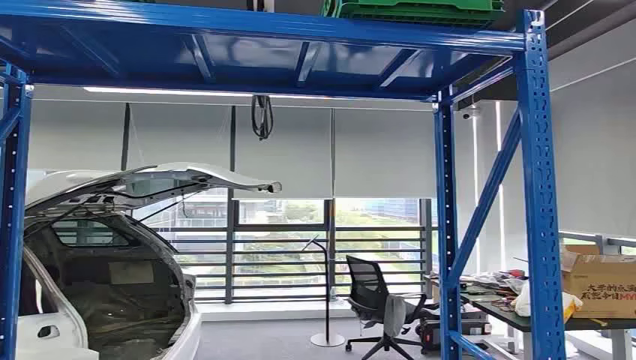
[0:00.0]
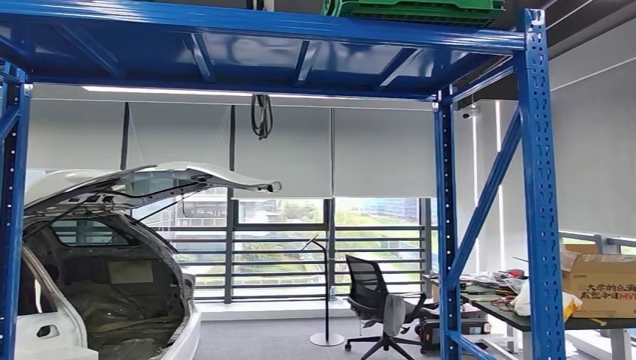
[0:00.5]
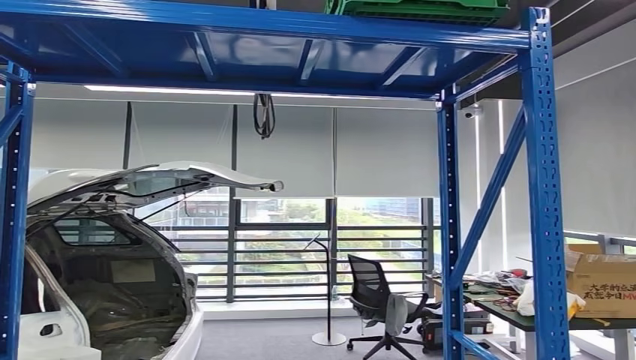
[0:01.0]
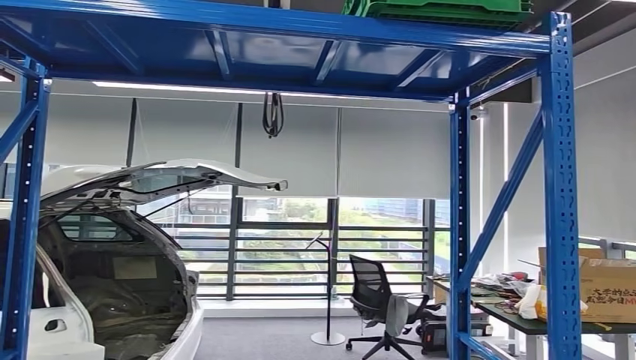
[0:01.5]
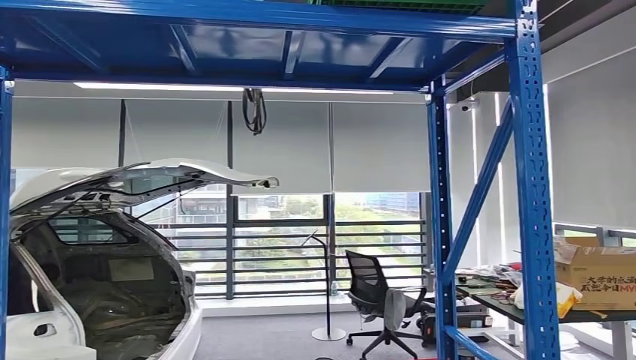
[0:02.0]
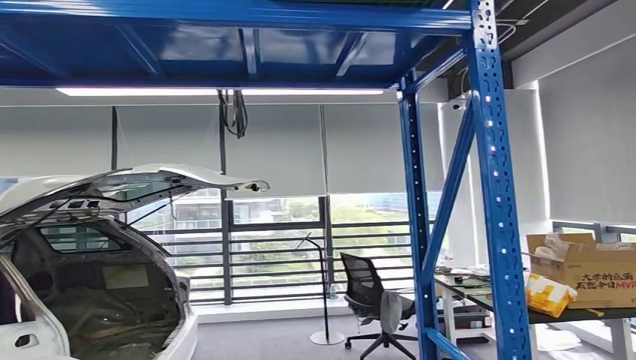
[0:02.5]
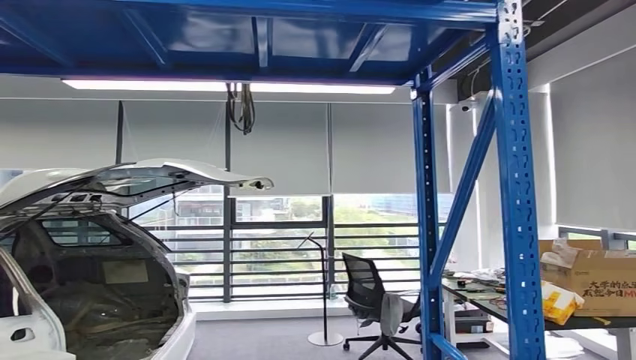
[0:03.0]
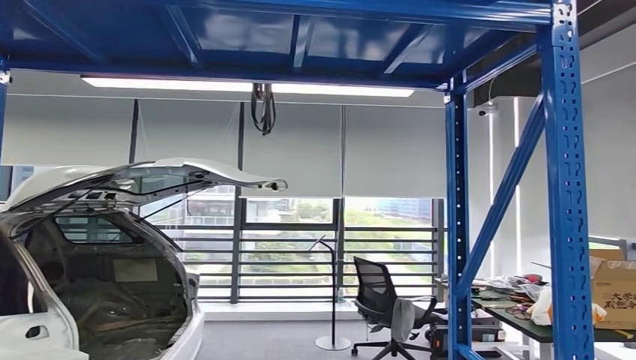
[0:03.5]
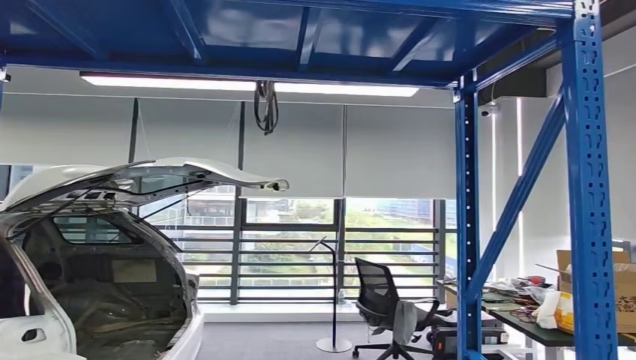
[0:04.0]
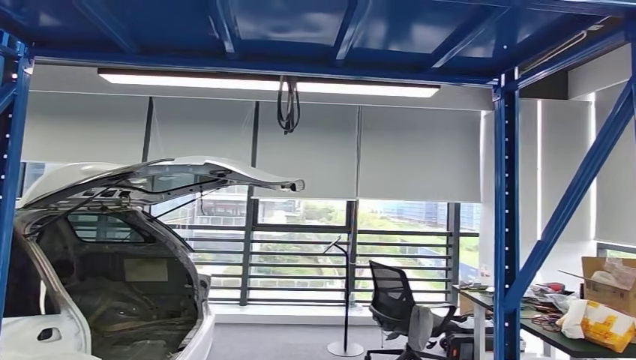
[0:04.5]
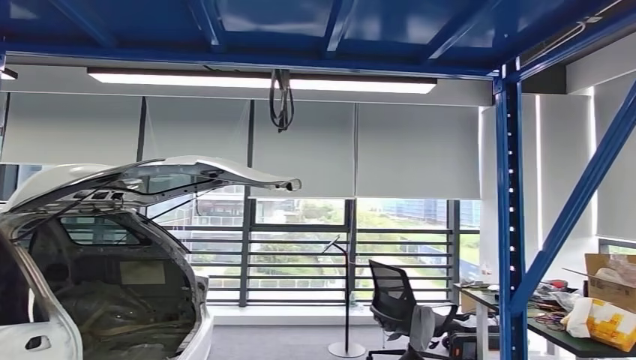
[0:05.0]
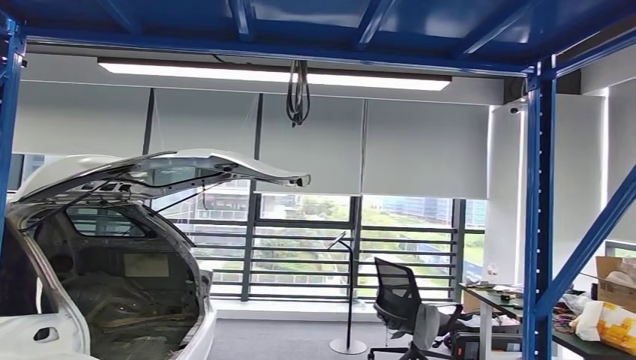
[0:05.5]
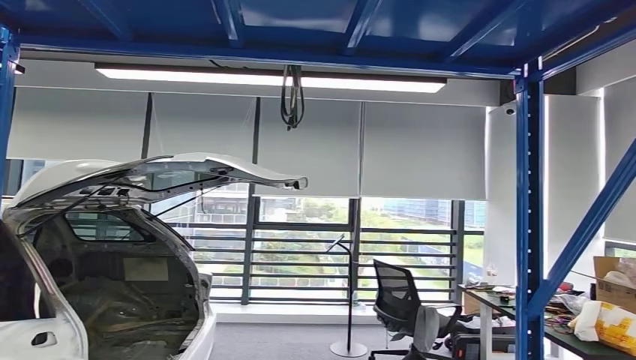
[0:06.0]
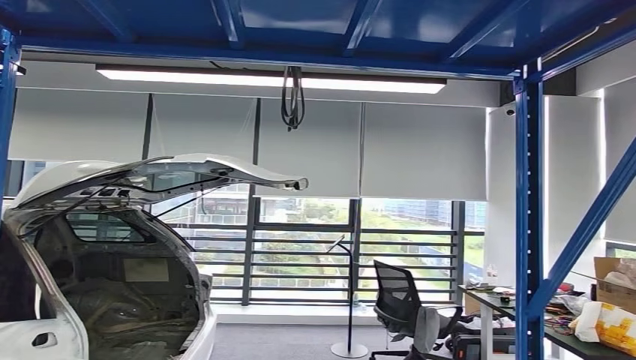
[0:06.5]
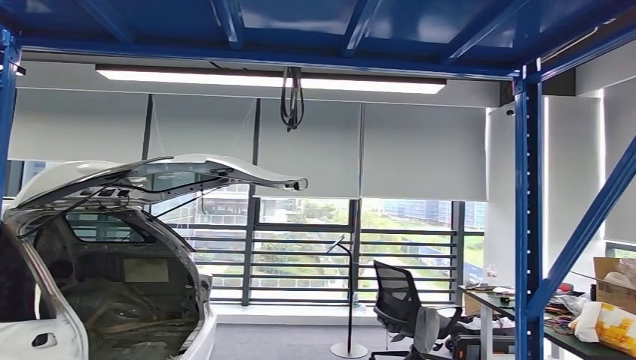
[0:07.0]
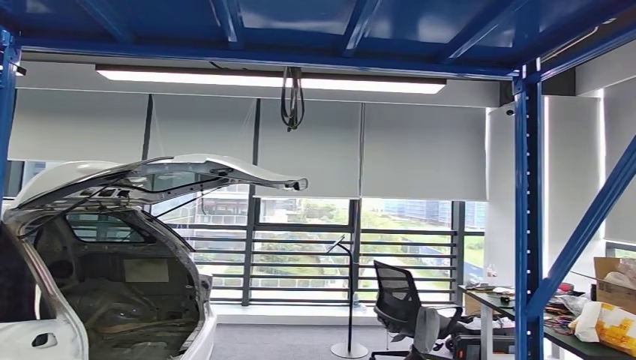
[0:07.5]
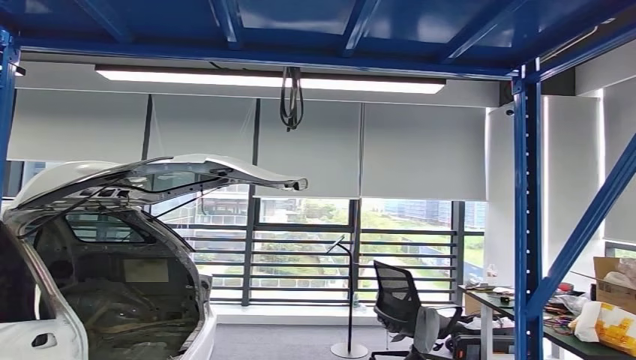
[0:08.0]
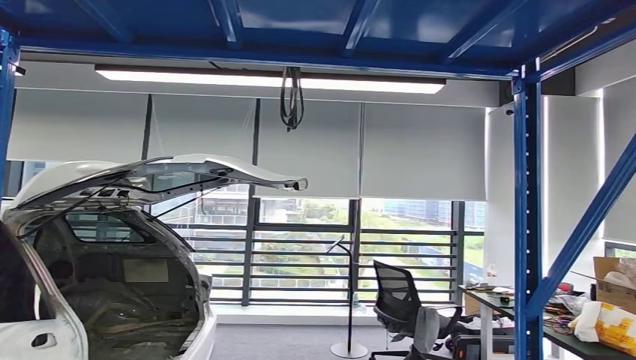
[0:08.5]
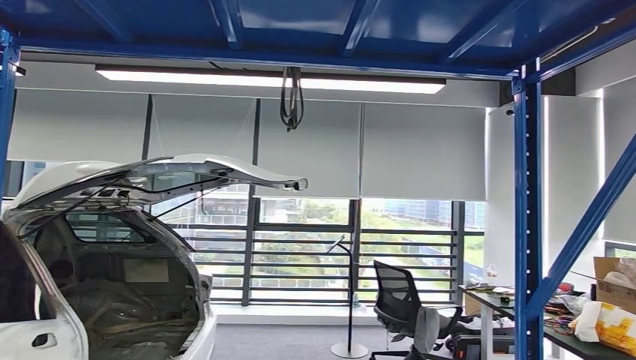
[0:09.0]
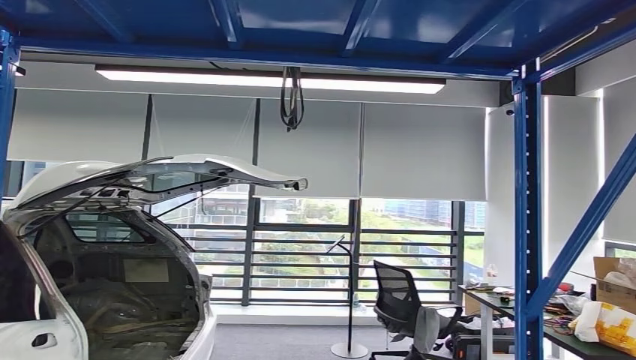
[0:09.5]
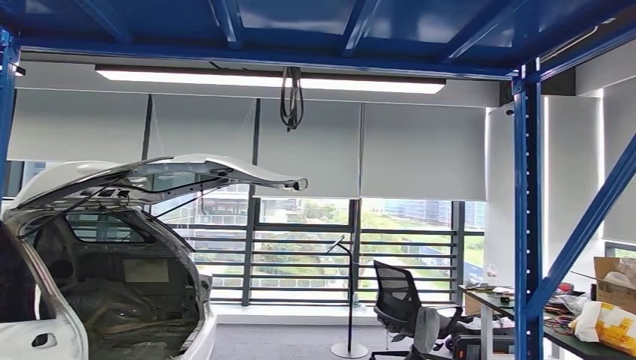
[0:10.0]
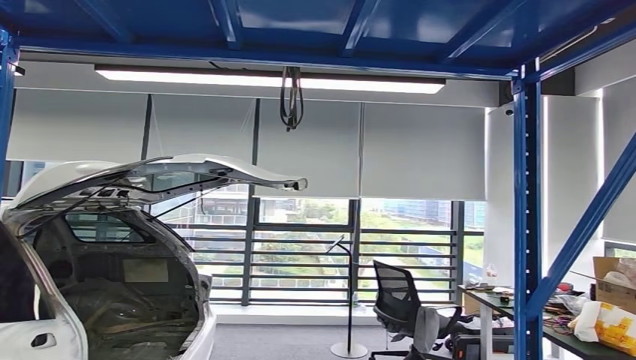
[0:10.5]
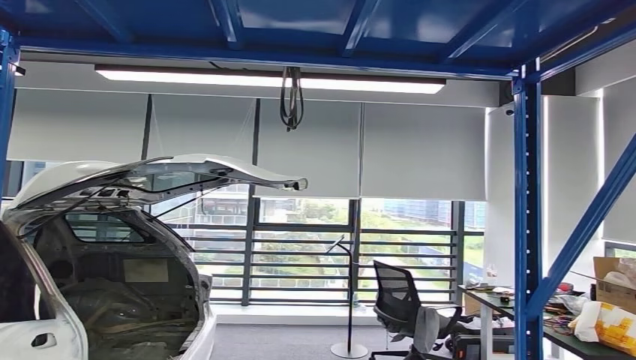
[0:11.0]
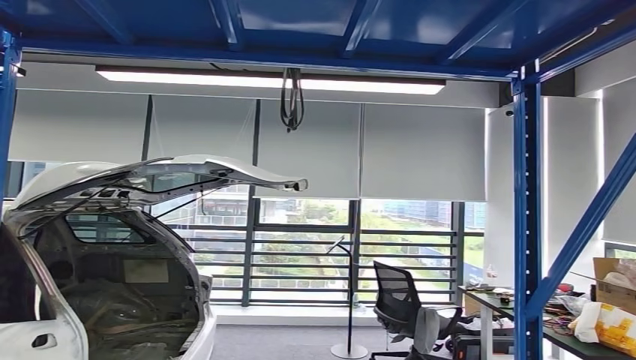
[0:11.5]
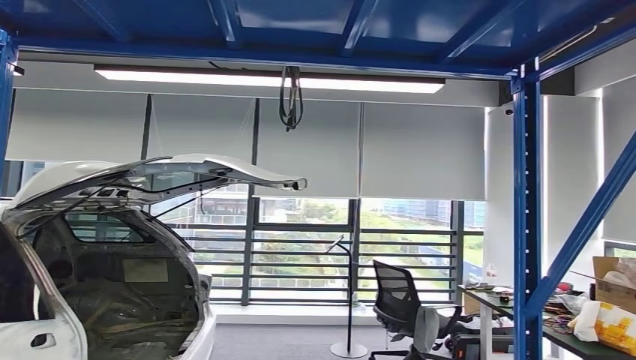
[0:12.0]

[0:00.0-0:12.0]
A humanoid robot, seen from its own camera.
Step, 0:00.0 to 0:11.5: Pick up the small component from the shelf.
0:06.0 to 0:08.0: The right hand moves forward, approximately 10 cm.
0:10.0 to 0:12.0: The right hand heads to the left, covering about 5 cm.

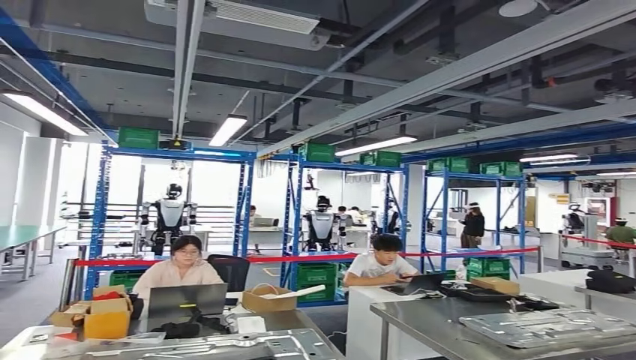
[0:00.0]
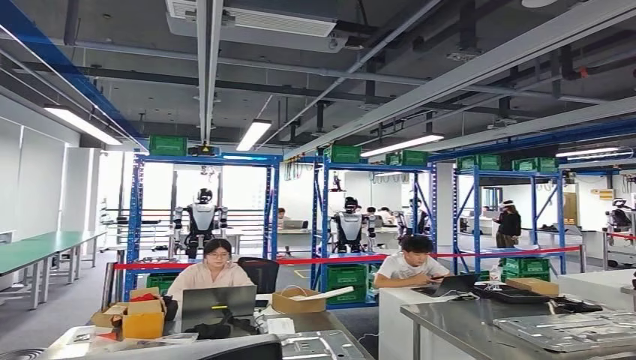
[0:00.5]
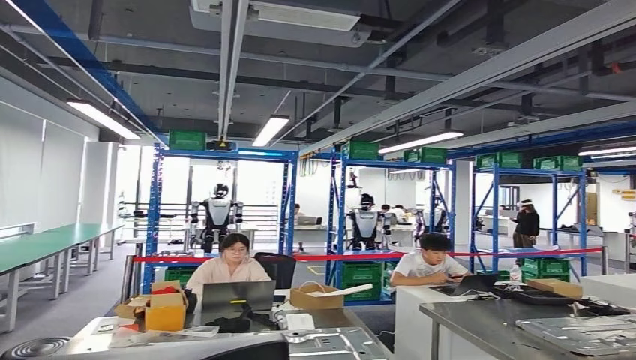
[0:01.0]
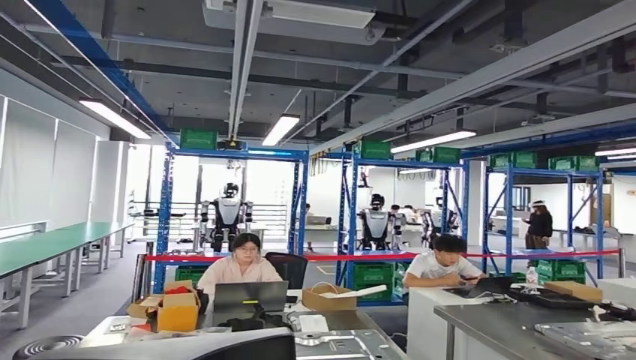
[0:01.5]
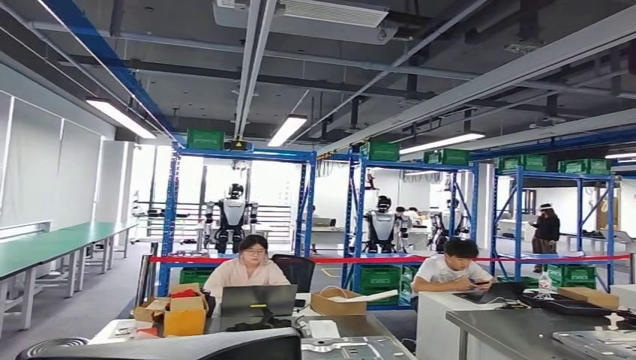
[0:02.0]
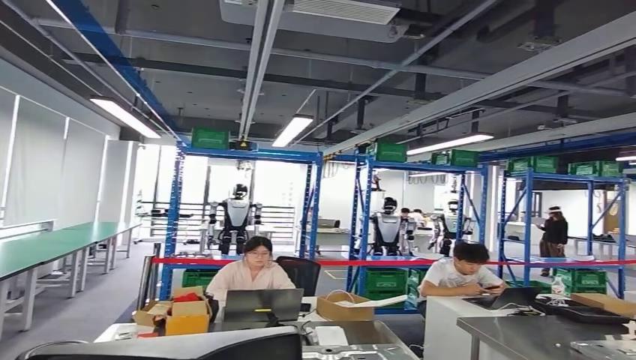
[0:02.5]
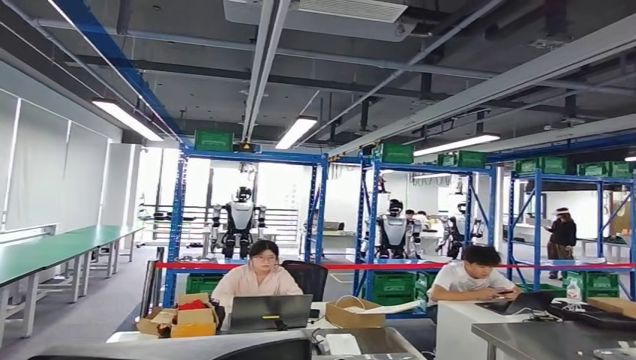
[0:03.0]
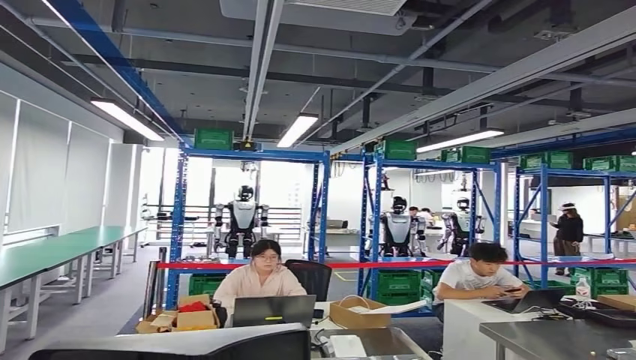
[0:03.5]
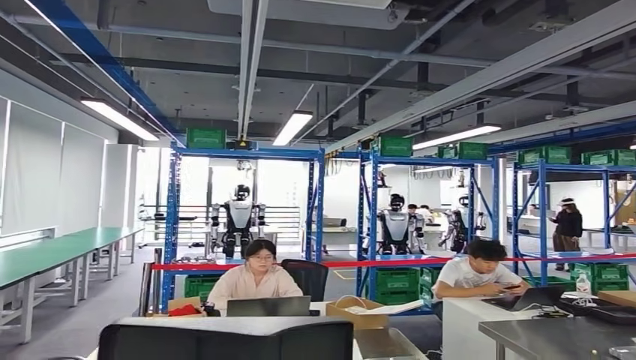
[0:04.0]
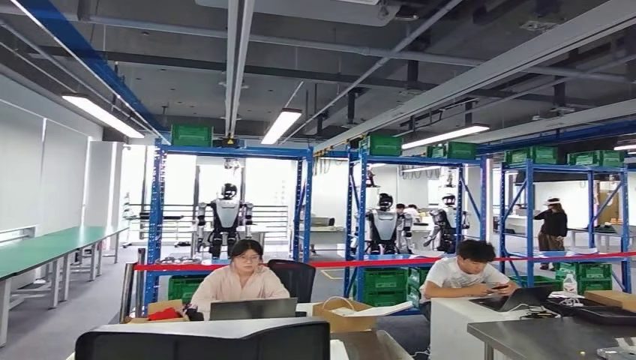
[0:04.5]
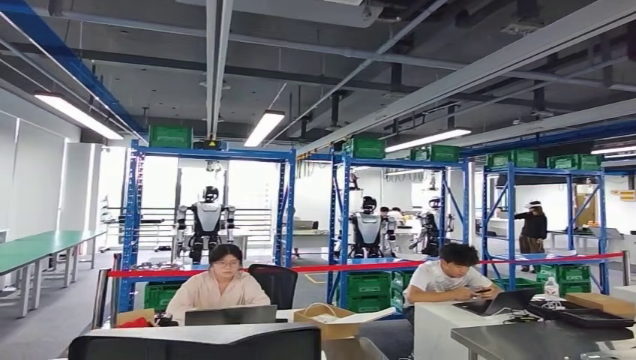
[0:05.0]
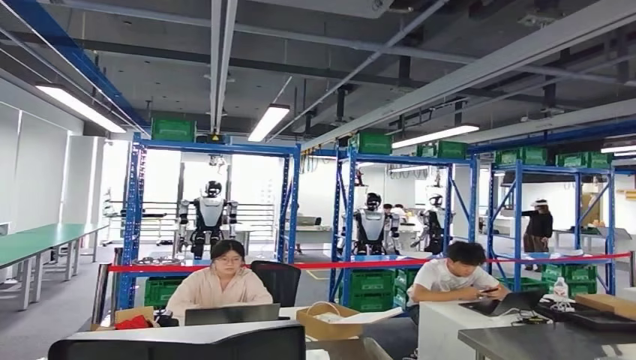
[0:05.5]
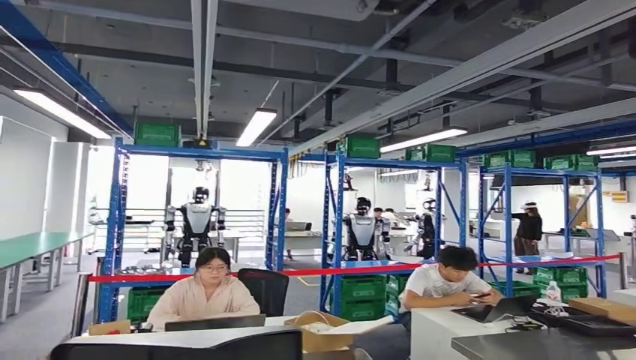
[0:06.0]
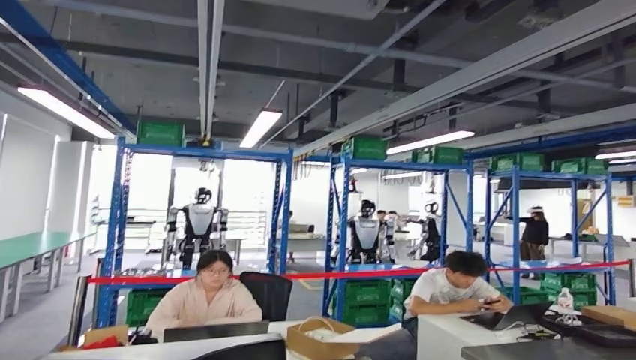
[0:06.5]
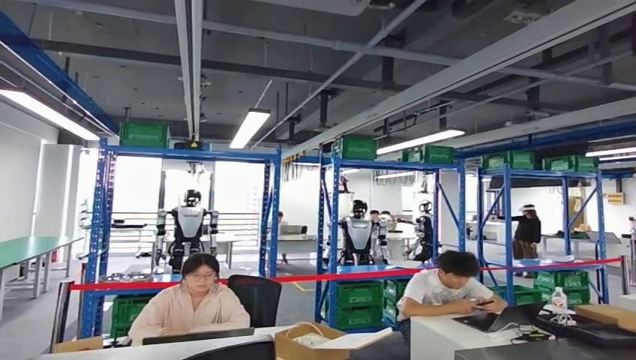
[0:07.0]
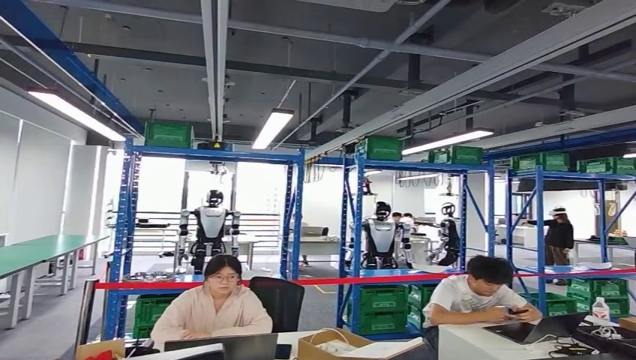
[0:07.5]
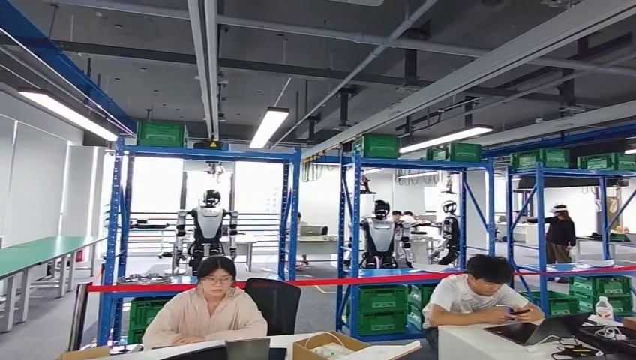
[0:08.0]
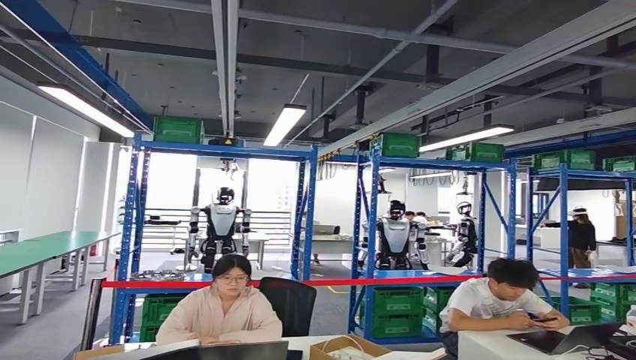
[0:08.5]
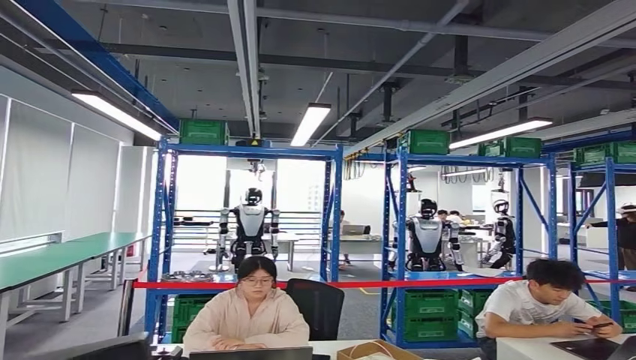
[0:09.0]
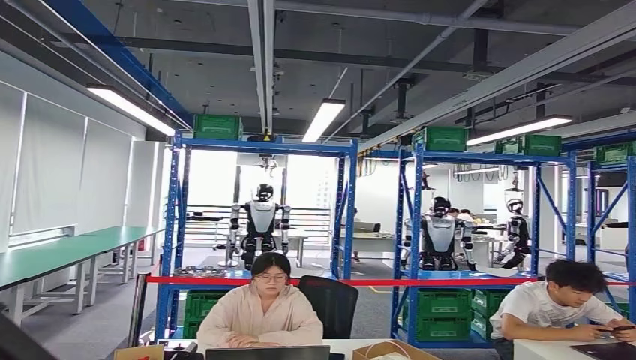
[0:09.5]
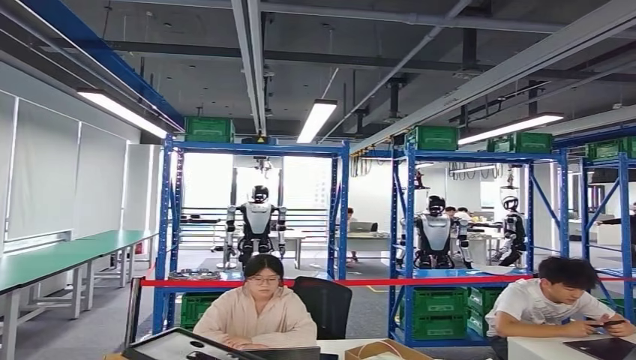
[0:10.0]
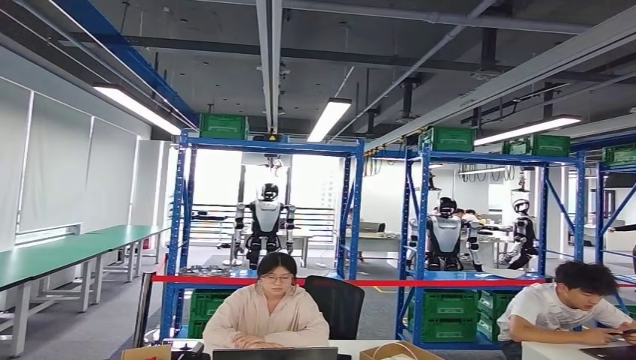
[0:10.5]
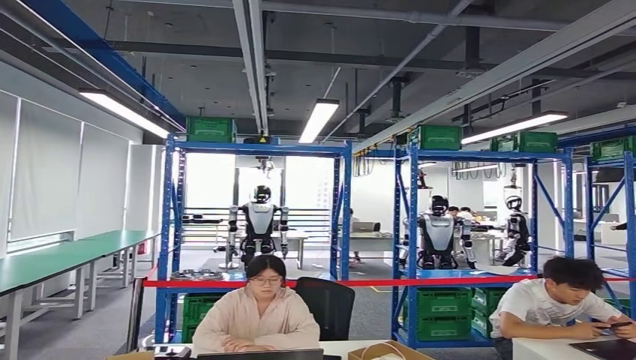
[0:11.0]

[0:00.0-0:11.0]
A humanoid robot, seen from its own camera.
Step, 0:00.0 to 0:07.5: Bring the small component to the front of the workbench.
